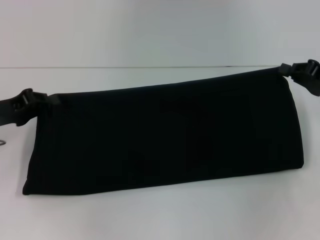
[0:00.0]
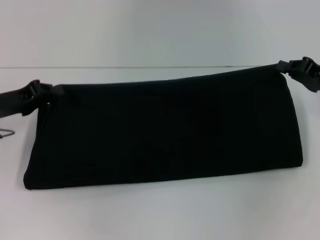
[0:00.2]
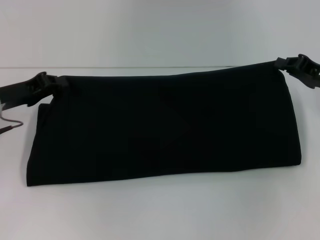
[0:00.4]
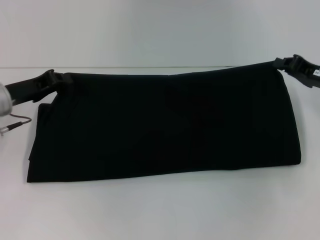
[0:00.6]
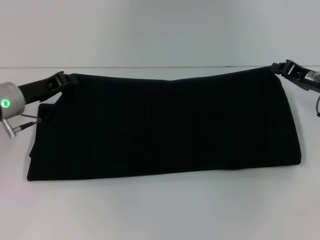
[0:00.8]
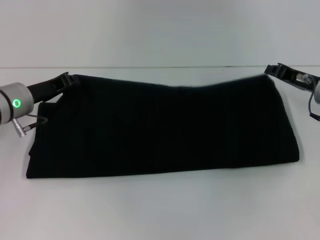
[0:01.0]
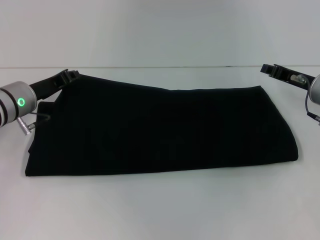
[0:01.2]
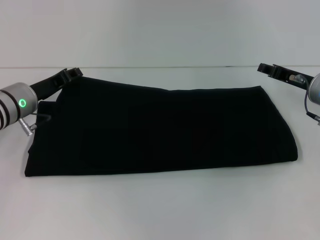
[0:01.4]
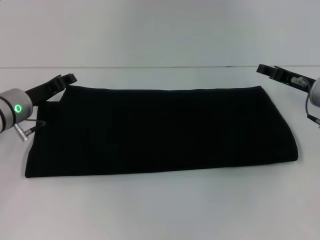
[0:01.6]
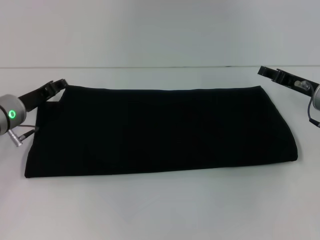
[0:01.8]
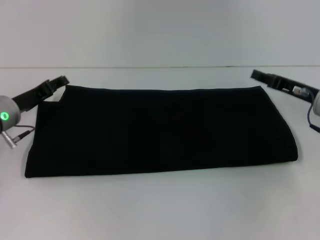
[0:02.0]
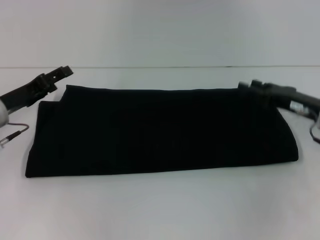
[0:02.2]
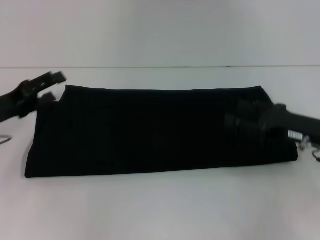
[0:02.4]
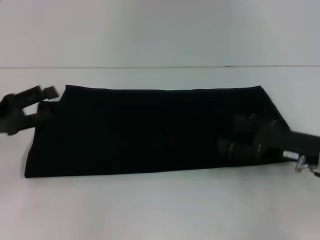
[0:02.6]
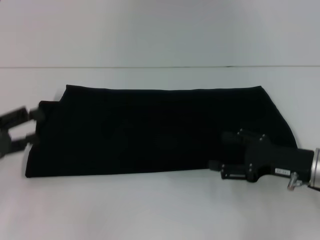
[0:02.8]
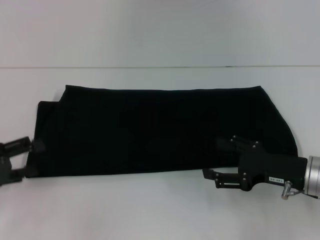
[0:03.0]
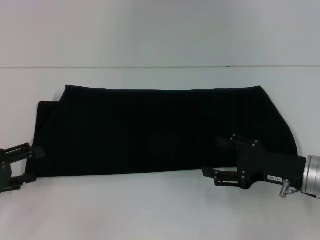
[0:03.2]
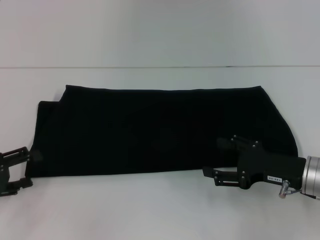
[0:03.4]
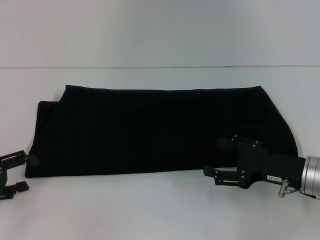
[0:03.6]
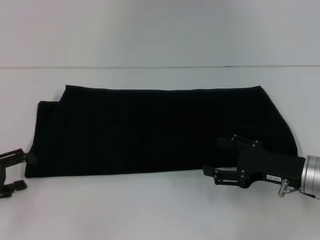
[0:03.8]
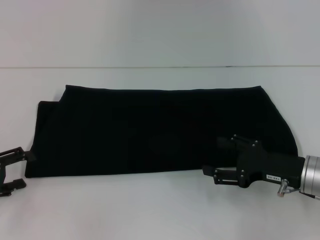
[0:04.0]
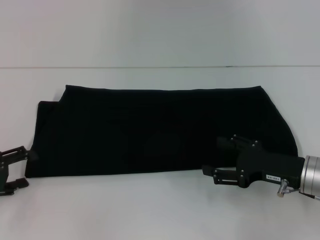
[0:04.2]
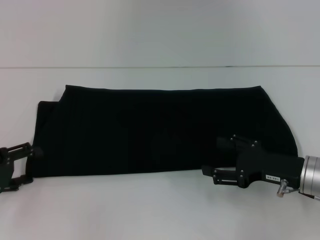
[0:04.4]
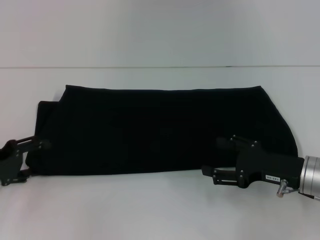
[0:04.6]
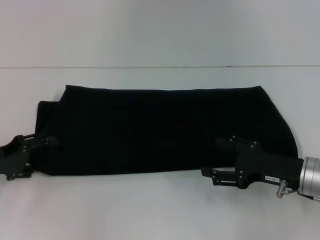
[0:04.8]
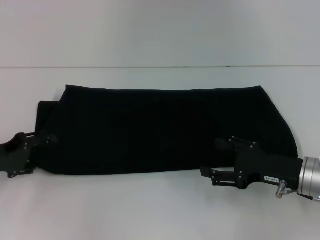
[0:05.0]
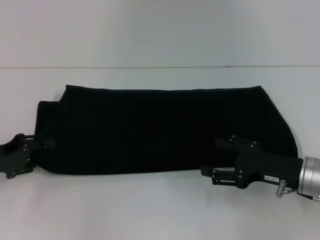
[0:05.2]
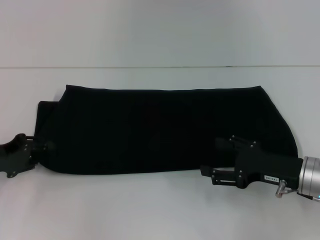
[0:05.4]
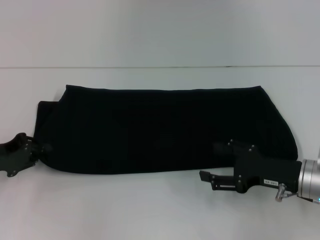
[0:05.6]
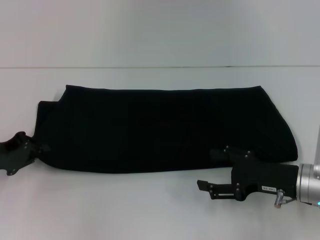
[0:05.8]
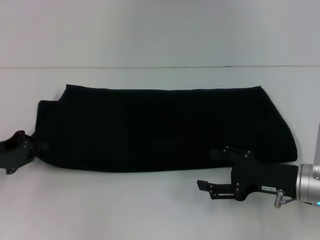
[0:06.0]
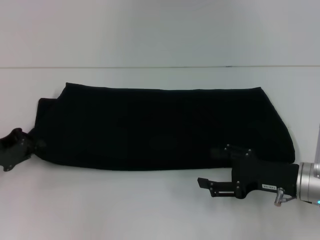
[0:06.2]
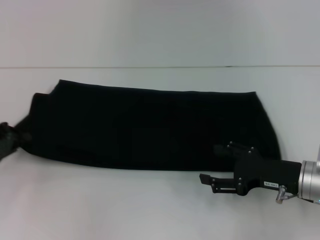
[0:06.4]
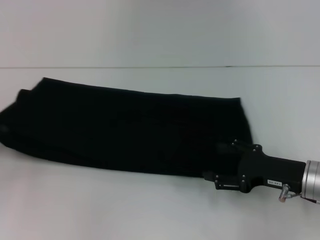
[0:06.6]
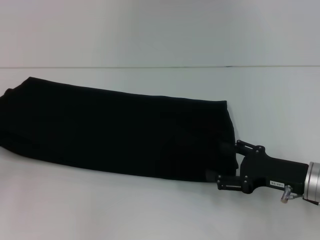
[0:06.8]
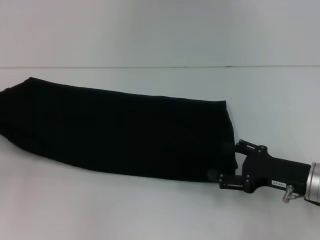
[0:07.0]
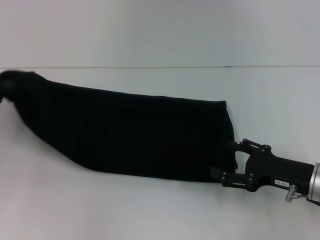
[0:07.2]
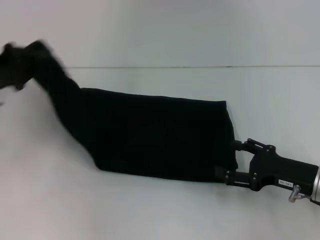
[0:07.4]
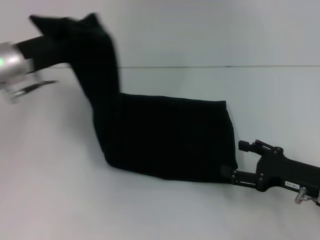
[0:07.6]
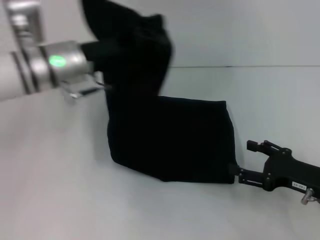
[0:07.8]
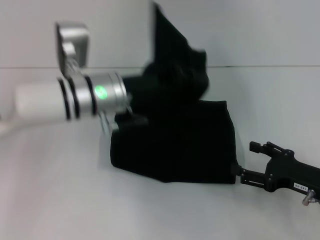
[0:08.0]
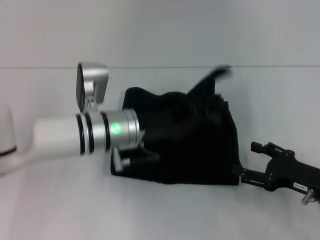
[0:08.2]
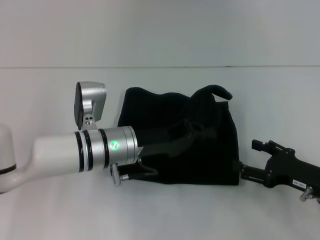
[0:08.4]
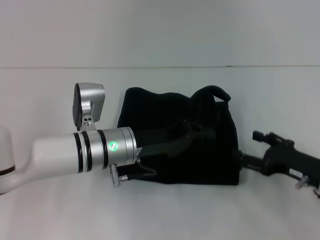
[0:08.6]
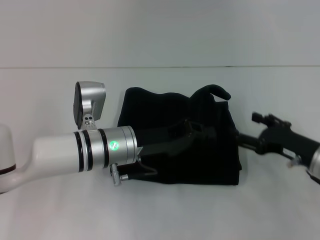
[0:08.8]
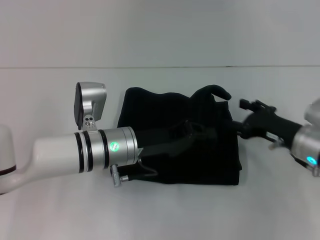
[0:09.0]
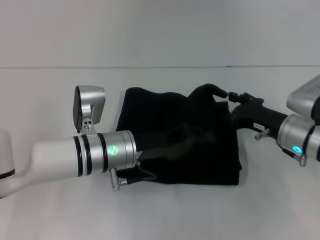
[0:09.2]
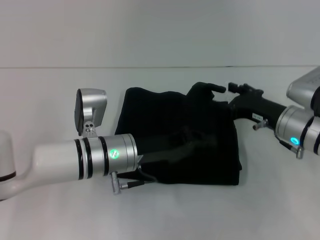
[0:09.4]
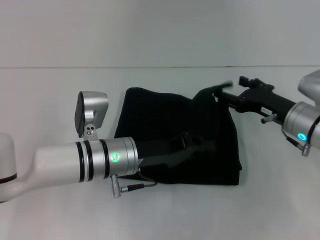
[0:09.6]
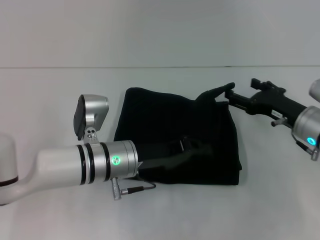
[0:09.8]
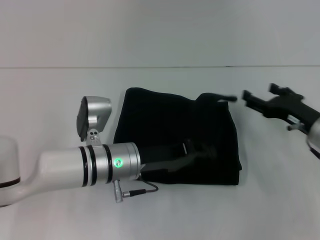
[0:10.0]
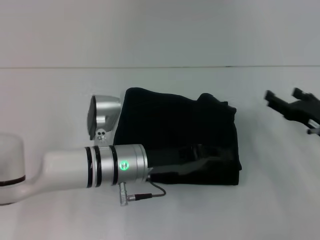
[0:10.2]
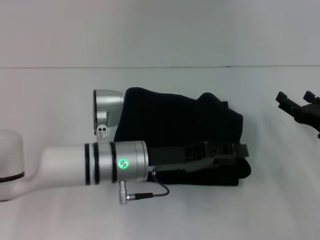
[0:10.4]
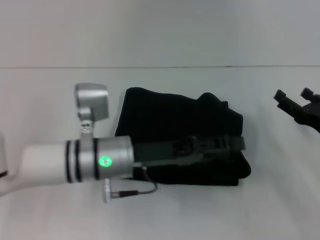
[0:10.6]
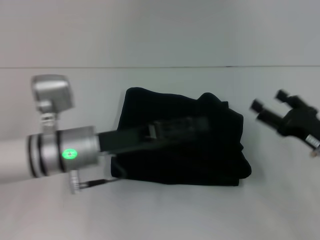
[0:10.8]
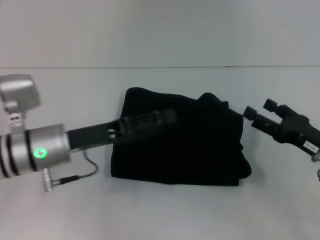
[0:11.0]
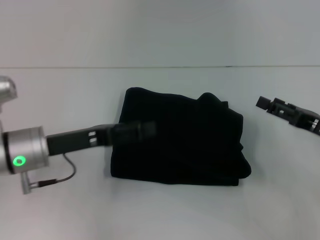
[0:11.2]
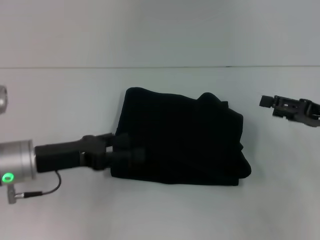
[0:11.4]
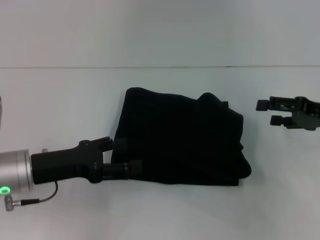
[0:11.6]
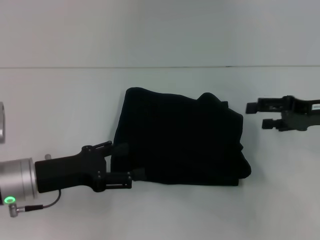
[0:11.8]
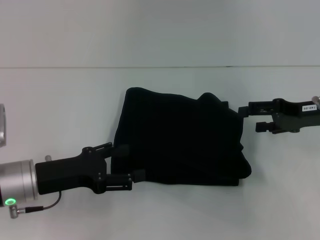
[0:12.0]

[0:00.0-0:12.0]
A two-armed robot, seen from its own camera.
Step, 0:00.0 to 0:02.0: Fold the clothes with your right hand.
Step, 0:00.0 to 0:11.2: Fold the clothes with your left hand.
0:00.0 to 0:01.6: The right gripper travels to the left by about 5 cm, and opens its fingers. Meanwhile the left gripper heads to the right and forward, covering roughly 10 cm, and opens up.
0:01.6 to 0:03.0: The right gripper heads backward, covering approximately 10 cm, and opens its fingers. Meanwhile the left gripper goes about 15 cm backward and to the left, and opens up.
0:03.0 to 0:04.4: The grippers make only small movements.
0:04.4 to 0:06.0: The left gripper closes up.
0:06.0 to 0:07.6: The left gripper travels upward, to the right and forward by some 15 cm.
0:07.6 to 0:09.0: The left gripper is displaced to the right and downward by some 20 cm; the right gripper moves forward, about 5 cm.
0:09.0 to 0:10.4: The right gripper shifts about 5 cm to the right.
0:10.4 to 0:12.0: The right gripper shifts some 10 cm upward and forward; the left gripper is displaced to the left by roughly 15 cm, and opens up.

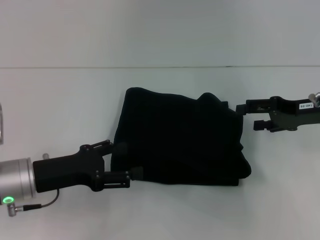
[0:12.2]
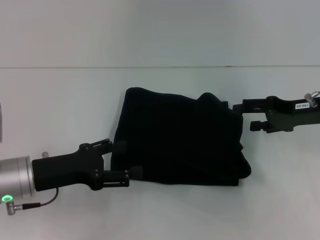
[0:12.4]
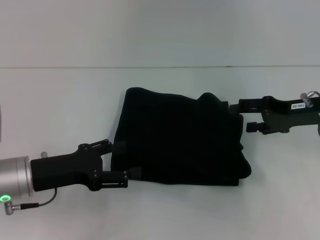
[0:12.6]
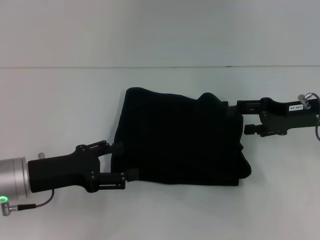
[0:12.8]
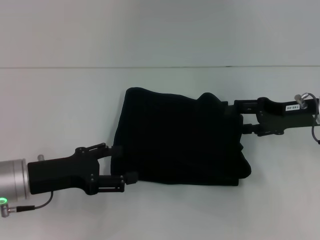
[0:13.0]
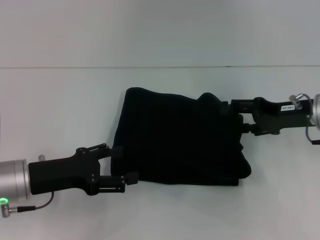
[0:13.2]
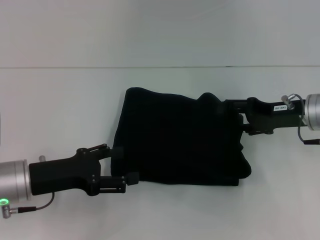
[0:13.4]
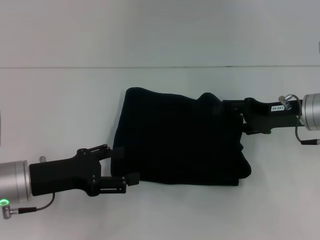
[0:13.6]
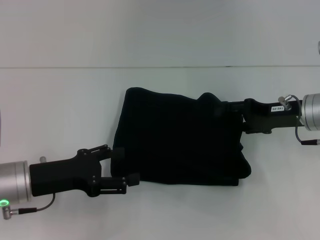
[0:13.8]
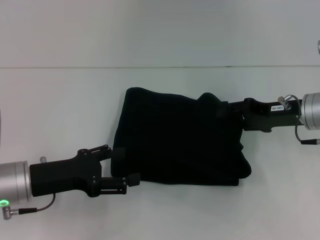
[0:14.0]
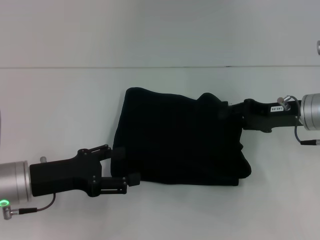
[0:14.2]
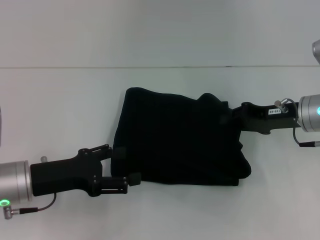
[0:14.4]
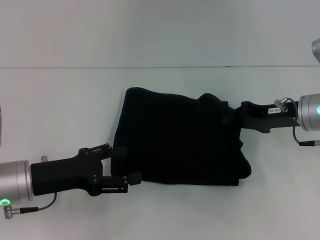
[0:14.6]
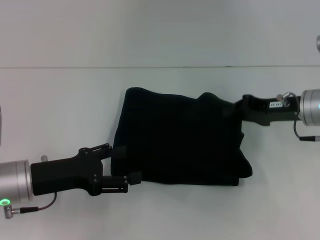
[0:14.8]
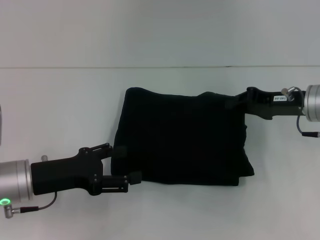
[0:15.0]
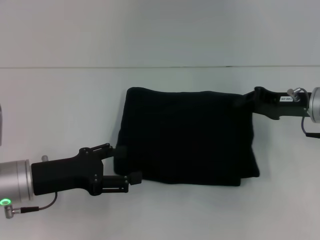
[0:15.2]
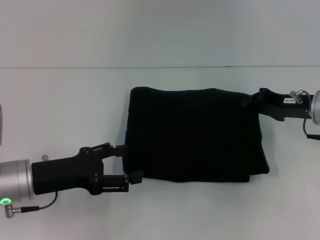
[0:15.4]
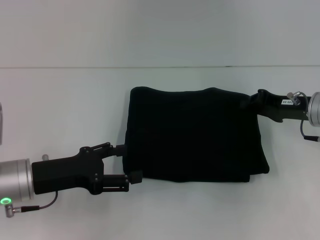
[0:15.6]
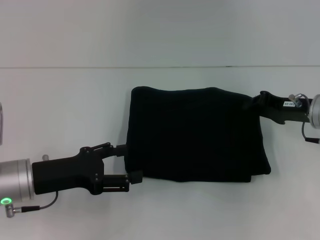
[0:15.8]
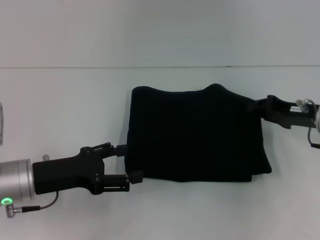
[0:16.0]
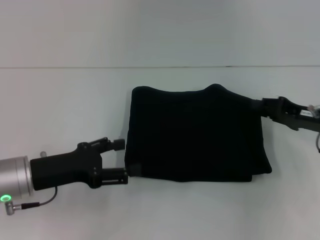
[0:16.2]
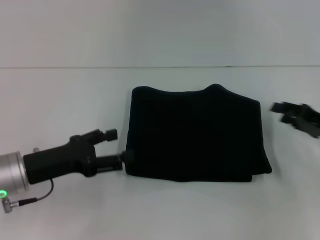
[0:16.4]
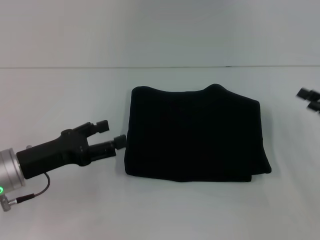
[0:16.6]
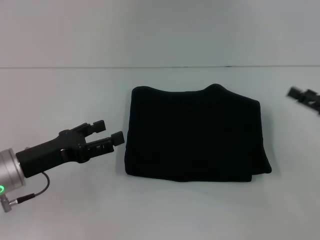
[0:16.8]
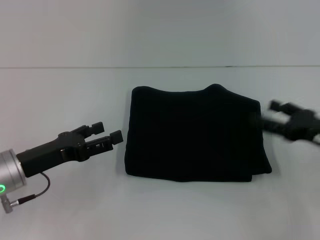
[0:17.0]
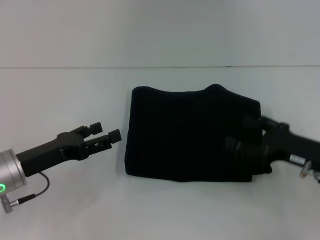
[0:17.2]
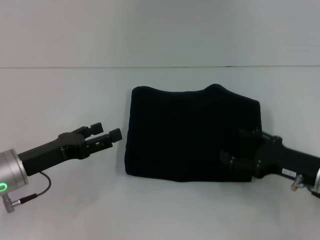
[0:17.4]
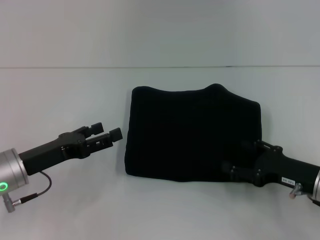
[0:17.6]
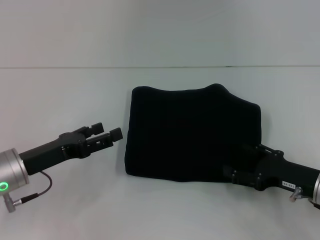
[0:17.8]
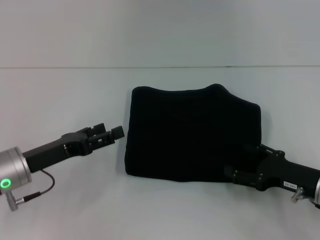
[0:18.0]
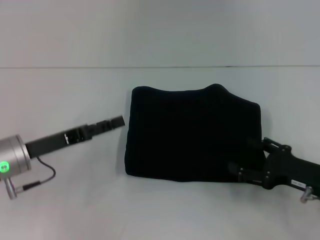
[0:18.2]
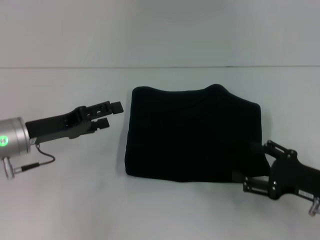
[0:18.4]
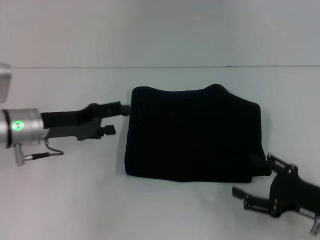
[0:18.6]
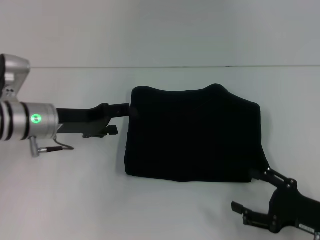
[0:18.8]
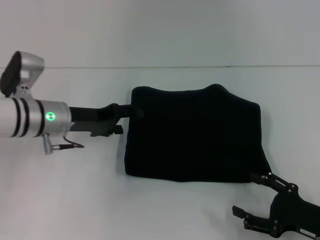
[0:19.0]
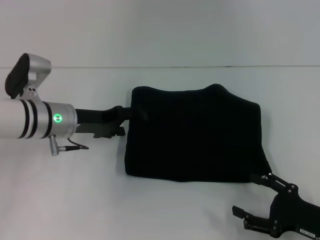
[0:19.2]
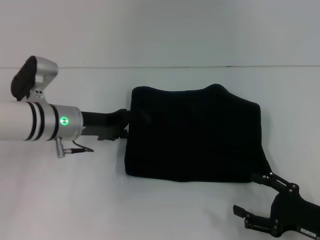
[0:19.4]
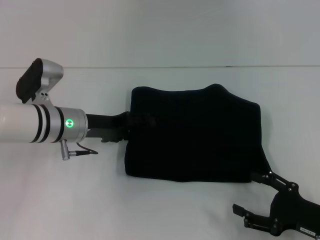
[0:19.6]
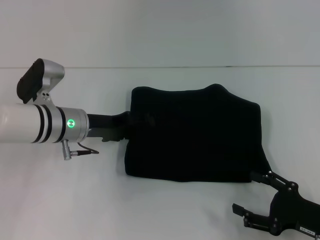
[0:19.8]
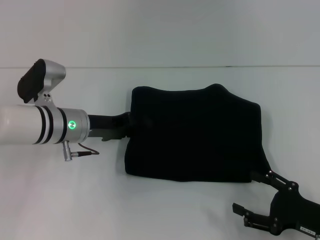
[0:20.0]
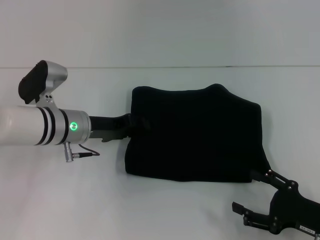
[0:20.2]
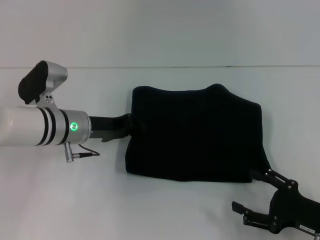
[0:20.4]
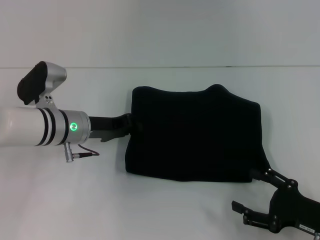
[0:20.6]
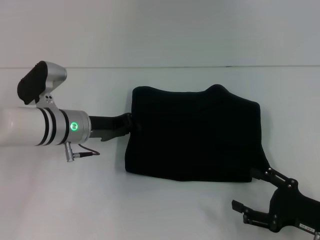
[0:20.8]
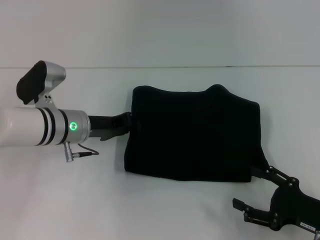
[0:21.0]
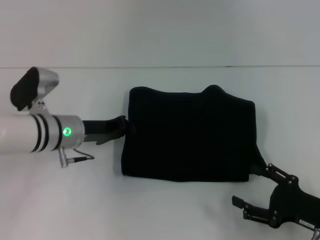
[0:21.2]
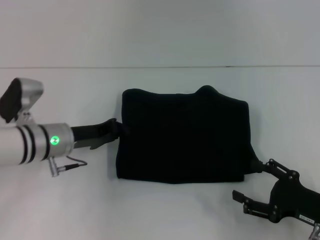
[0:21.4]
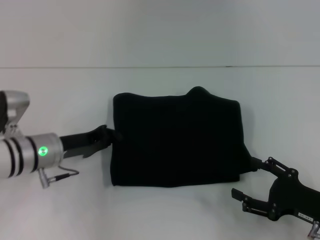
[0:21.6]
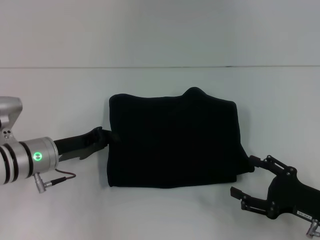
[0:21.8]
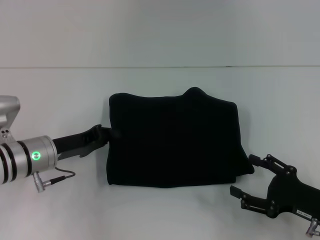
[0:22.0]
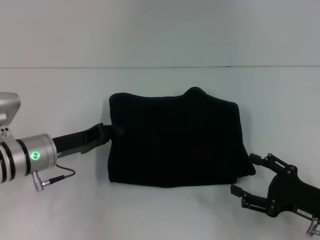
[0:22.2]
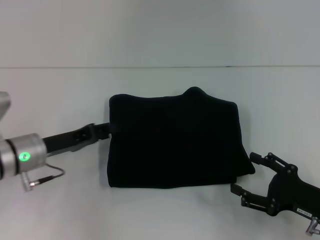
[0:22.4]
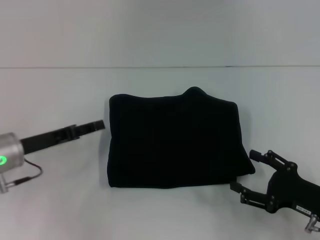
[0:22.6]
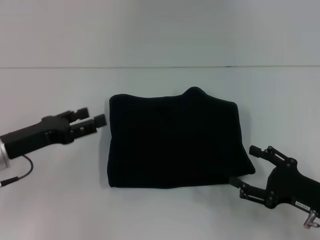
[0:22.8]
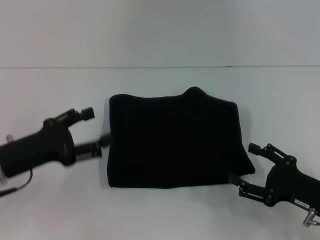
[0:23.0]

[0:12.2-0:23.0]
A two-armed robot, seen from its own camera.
0:12.2 to 0:13.8: There are only small adjustments of the grippers.
0:13.8 to 0:15.2: The right gripper closes its fingers.
0:15.2 to 0:16.8: The right gripper shifts roughly 10 cm to the right and backward, and opens up.
0:16.8 to 0:18.4: The right gripper heads to the left and backward, covering some 10 cm. Meanwhile the left gripper shifts about 5 cm forward.
0:18.4 to 0:20.0: The right gripper changes place by some 5 cm. Meanwhile the left gripper travels to the right by some 10 cm.
0:20.0 to 0:21.4: The left gripper closes.
0:21.4 to 0:23.0: The left gripper shifts approximately 10 cm backward and to the left, and opens its fingers.
